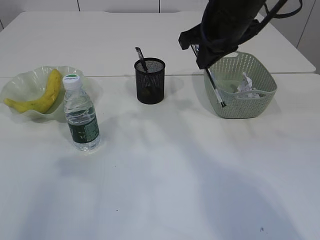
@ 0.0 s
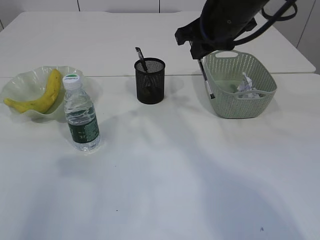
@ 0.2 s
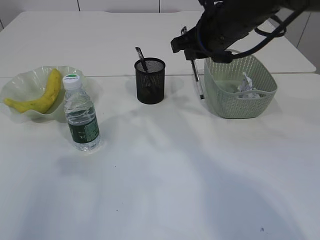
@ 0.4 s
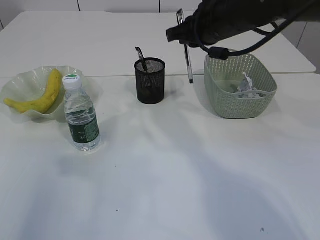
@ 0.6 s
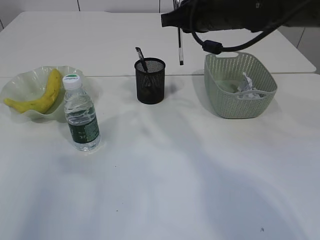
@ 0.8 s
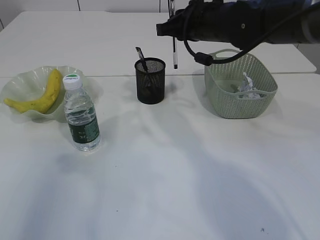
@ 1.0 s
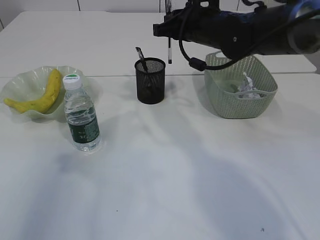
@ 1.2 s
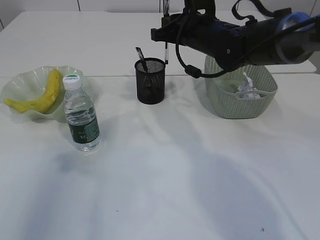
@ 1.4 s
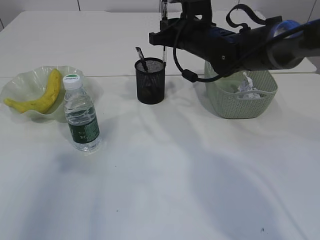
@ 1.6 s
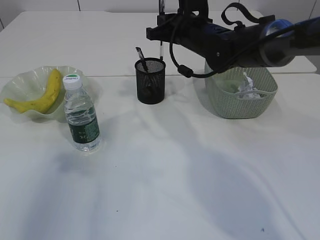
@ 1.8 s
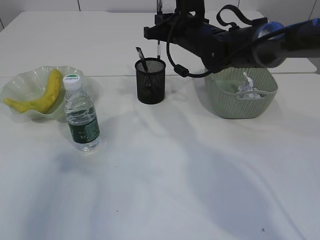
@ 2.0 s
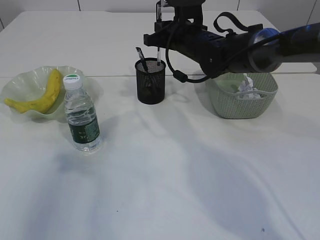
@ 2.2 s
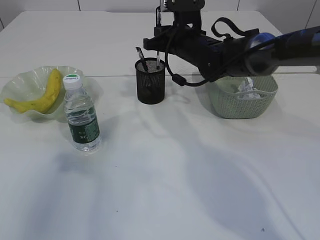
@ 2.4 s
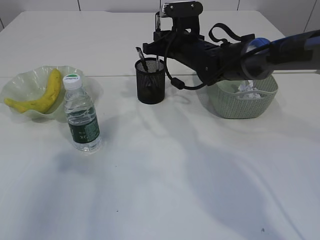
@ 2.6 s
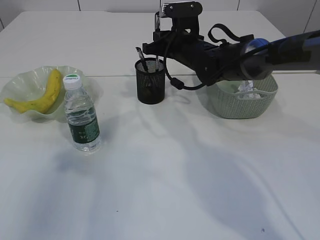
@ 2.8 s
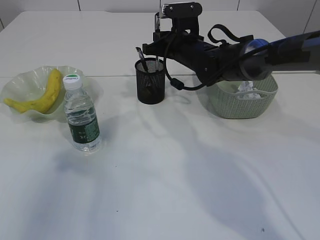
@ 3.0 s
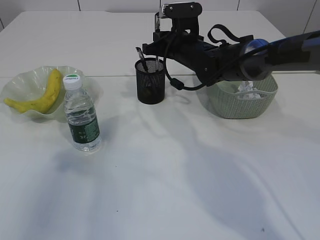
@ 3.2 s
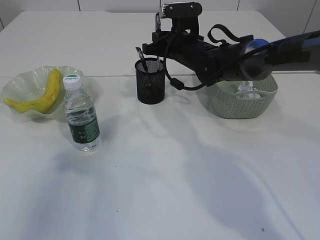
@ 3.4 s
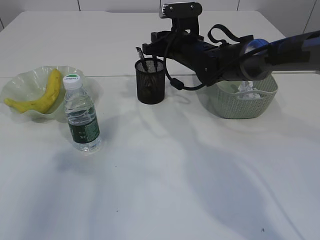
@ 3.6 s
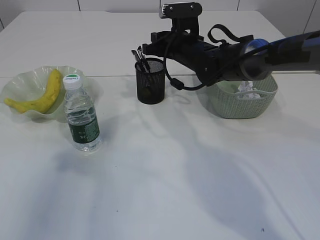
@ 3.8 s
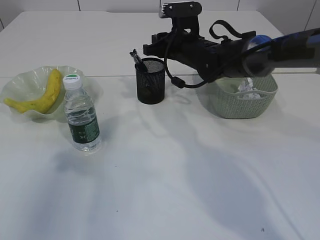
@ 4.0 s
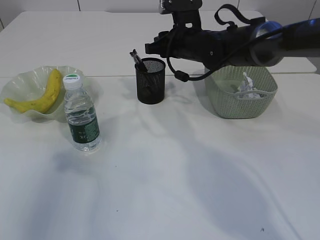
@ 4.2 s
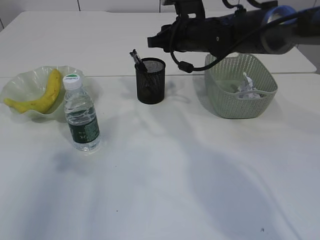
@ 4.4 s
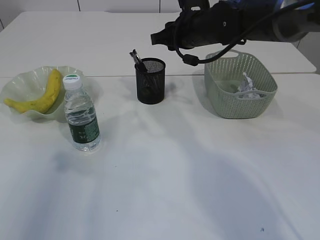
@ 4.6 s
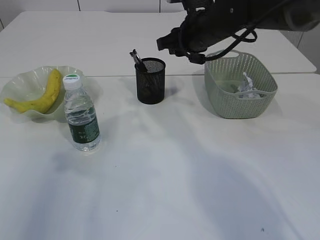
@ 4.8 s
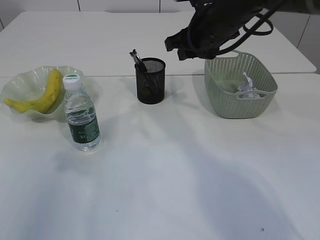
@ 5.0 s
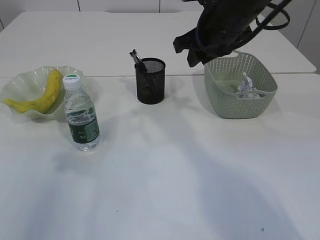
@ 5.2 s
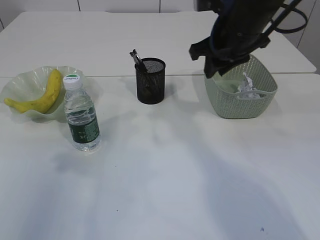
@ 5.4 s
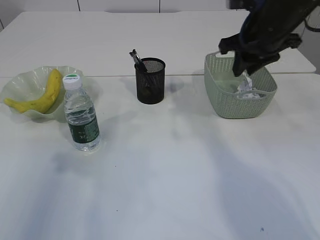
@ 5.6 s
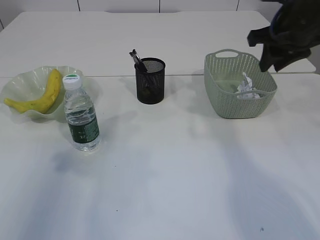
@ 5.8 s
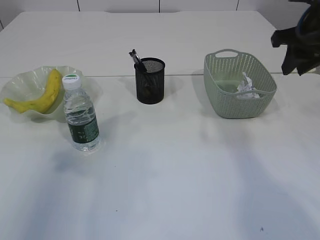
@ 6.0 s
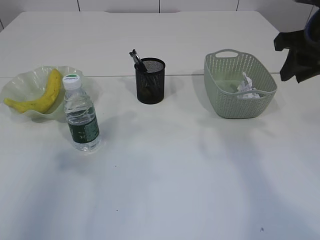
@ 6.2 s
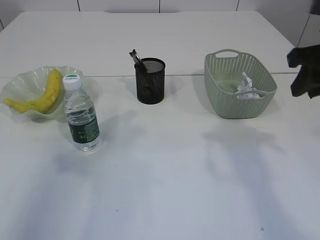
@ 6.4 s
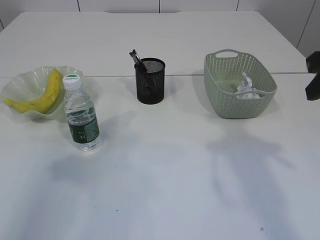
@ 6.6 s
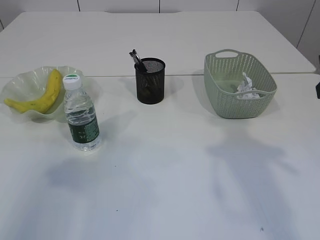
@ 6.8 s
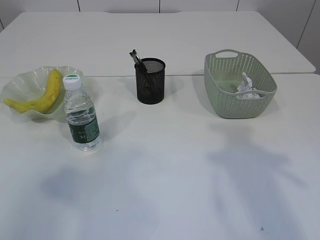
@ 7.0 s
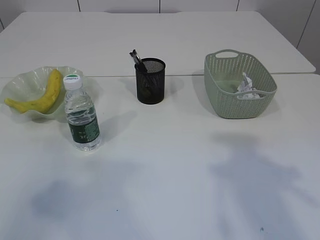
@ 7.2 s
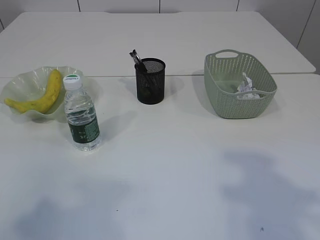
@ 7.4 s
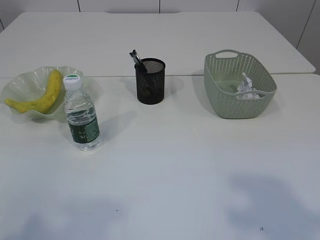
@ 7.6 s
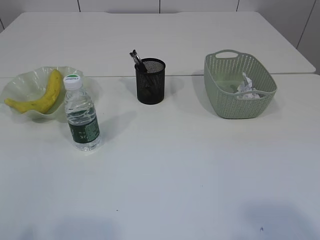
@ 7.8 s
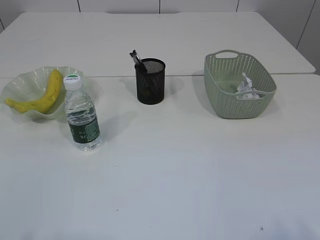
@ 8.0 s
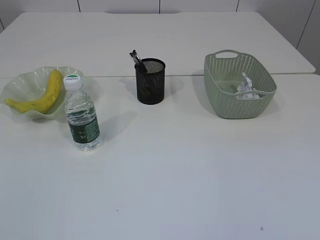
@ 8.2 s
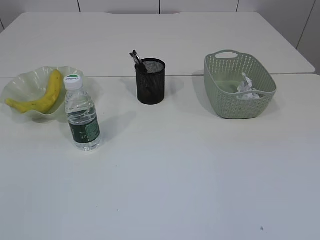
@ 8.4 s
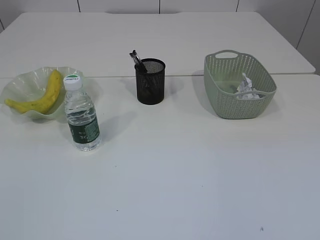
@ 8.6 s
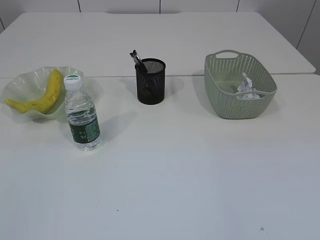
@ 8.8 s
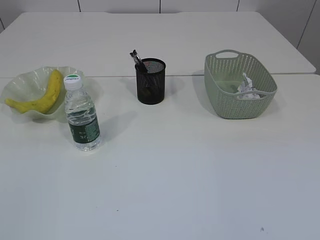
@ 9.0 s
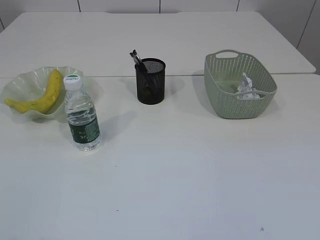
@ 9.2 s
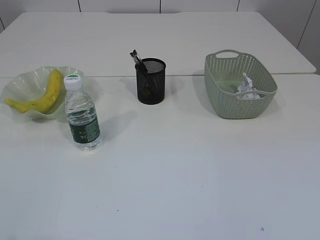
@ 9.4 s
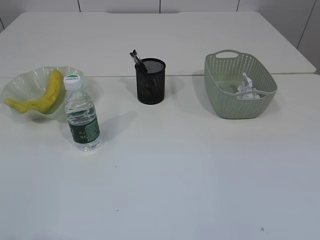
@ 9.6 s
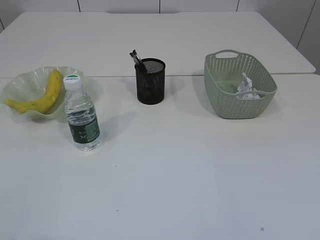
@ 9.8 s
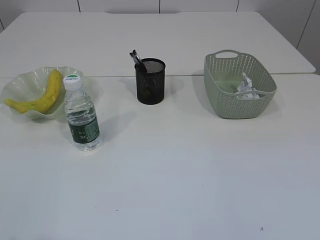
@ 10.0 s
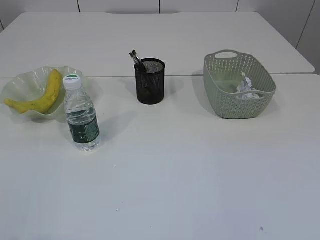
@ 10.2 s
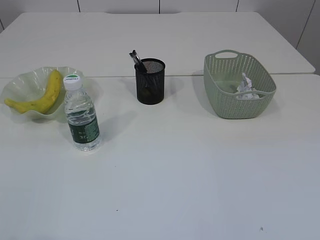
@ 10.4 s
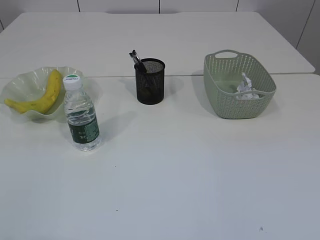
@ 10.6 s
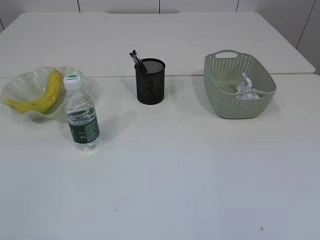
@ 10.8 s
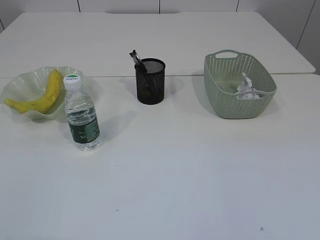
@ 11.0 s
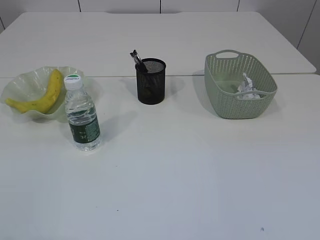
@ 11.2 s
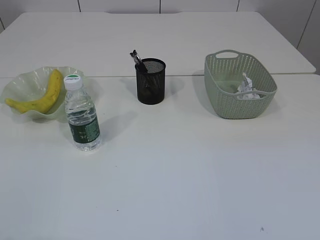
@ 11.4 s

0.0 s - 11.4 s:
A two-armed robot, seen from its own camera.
Step, 0.0 s - 3.8 s: Place the pen into the pen holder.
0.0 s - 1.4 s: The right gripper is displaced downward and forward by some 10 cm.
1.4 s - 2.8 s: The right gripper changes place by some 5 cm.
2.8 s - 4.2 s: There are only small adjustments of the grippers.
4.2 s - 5.6 s: The right gripper travels to the right, backward and upward by some 15 cm.
5.6 s - 7.2 s: The right gripper goes roughly 25 cm backward.
7.2 s - 8.6 s: The left gripper heads backward, covering some 15 cm.
